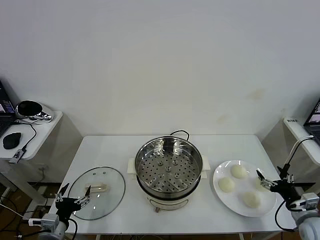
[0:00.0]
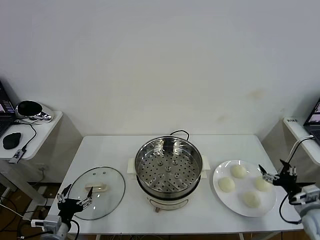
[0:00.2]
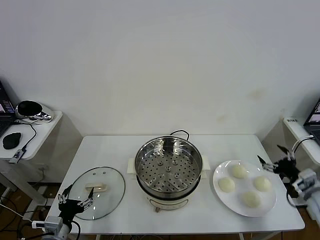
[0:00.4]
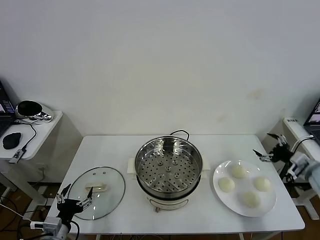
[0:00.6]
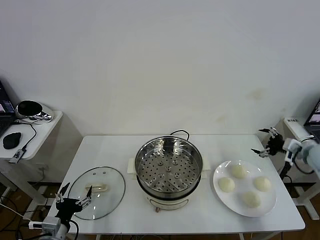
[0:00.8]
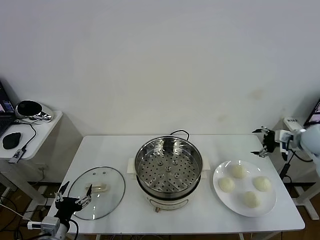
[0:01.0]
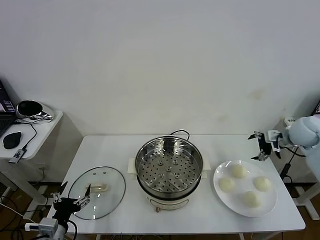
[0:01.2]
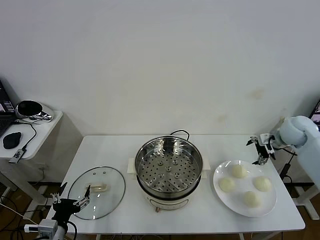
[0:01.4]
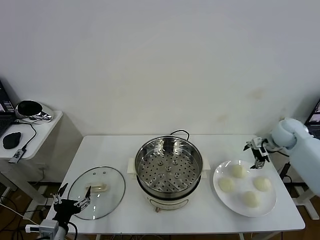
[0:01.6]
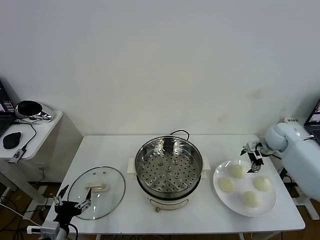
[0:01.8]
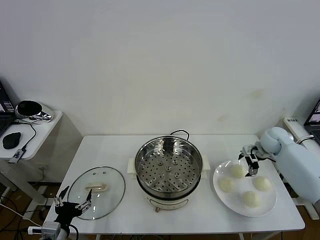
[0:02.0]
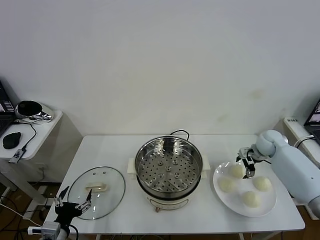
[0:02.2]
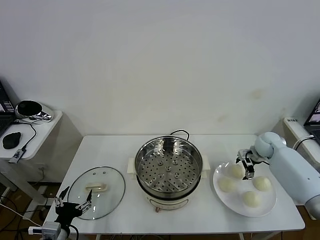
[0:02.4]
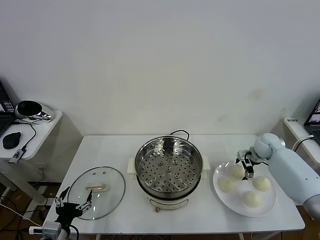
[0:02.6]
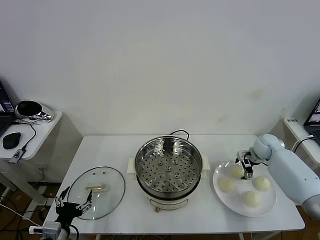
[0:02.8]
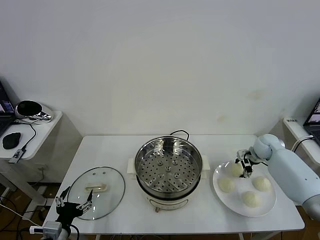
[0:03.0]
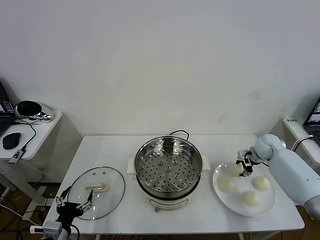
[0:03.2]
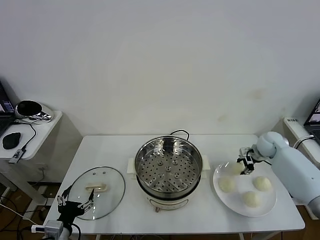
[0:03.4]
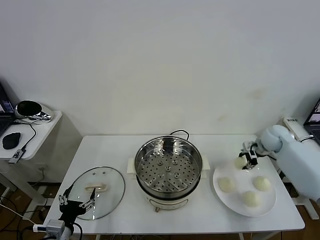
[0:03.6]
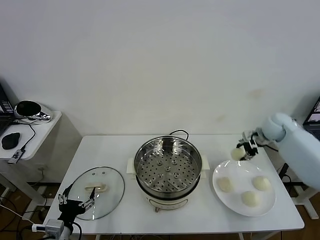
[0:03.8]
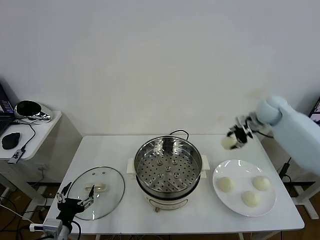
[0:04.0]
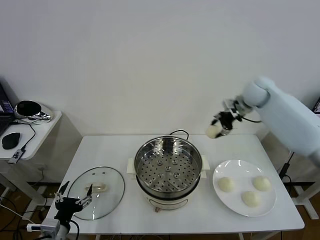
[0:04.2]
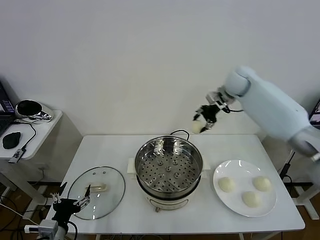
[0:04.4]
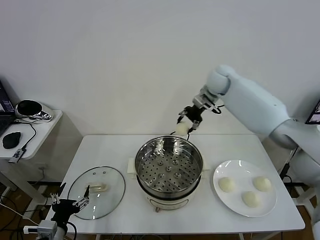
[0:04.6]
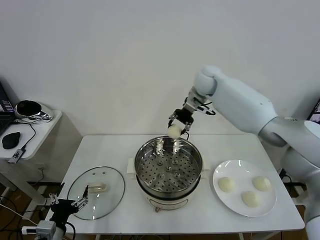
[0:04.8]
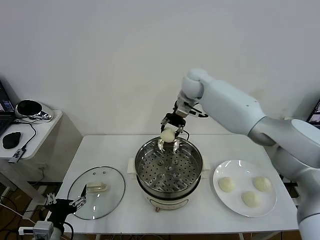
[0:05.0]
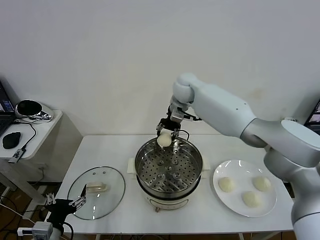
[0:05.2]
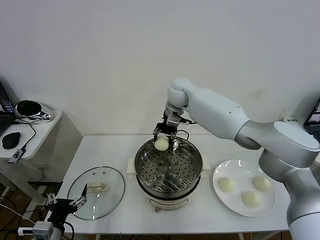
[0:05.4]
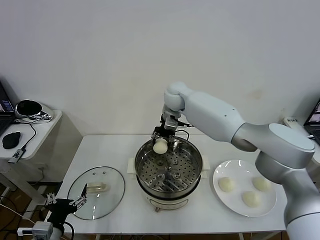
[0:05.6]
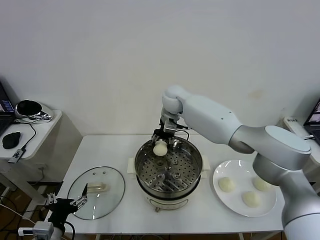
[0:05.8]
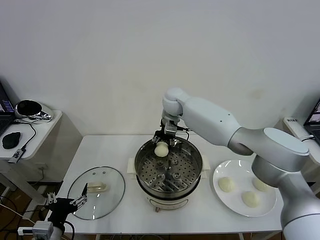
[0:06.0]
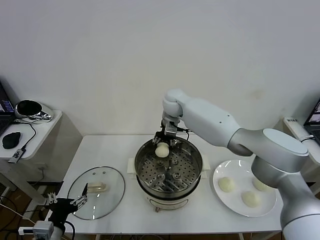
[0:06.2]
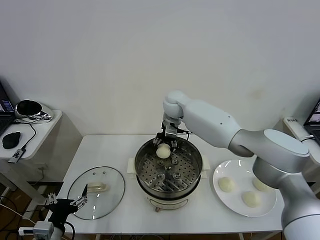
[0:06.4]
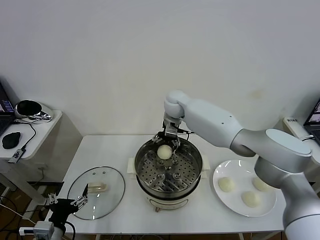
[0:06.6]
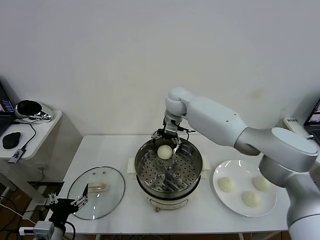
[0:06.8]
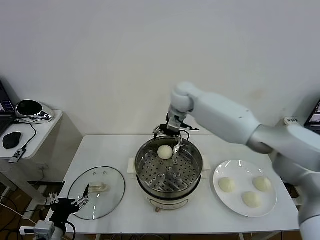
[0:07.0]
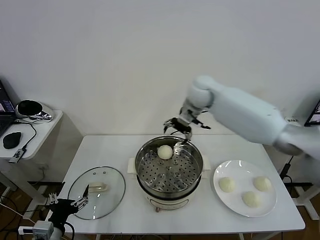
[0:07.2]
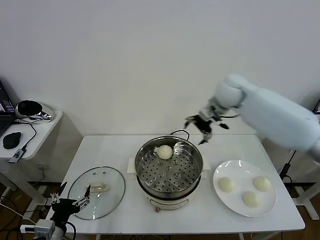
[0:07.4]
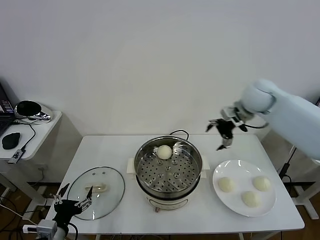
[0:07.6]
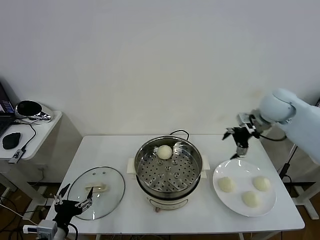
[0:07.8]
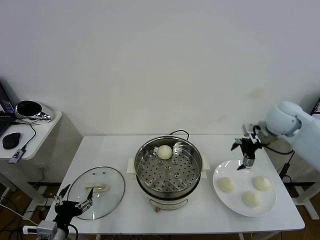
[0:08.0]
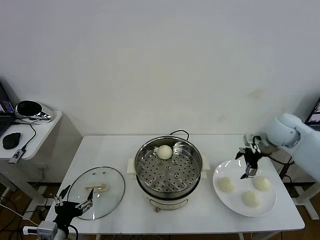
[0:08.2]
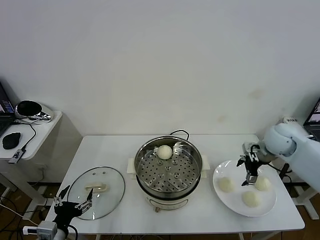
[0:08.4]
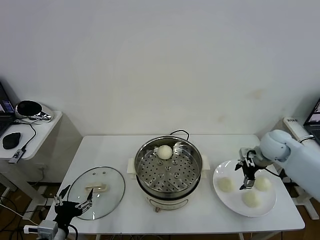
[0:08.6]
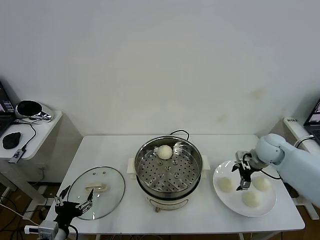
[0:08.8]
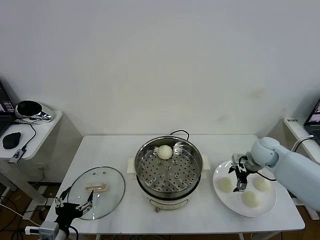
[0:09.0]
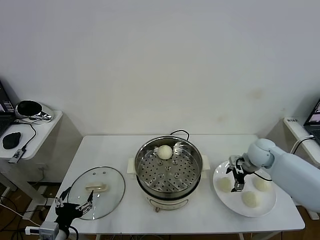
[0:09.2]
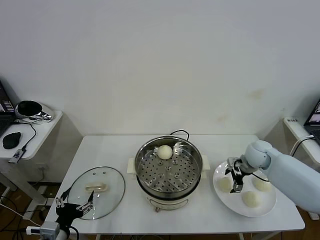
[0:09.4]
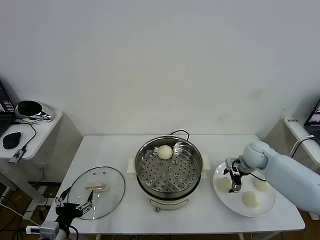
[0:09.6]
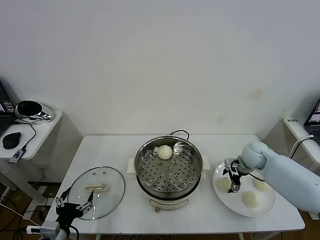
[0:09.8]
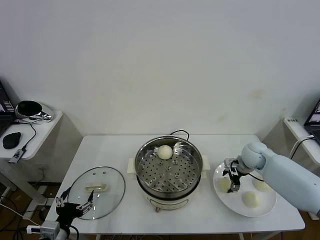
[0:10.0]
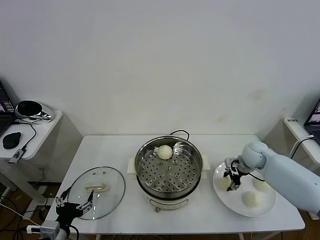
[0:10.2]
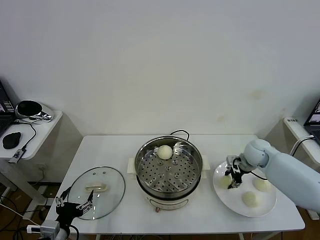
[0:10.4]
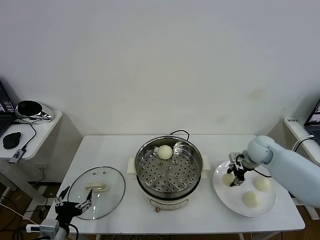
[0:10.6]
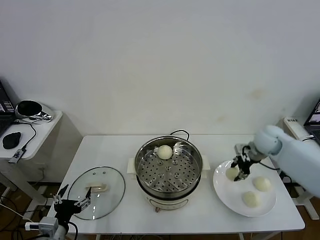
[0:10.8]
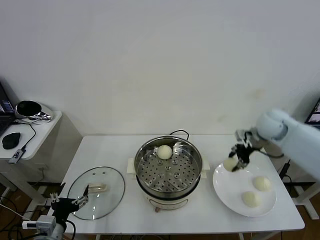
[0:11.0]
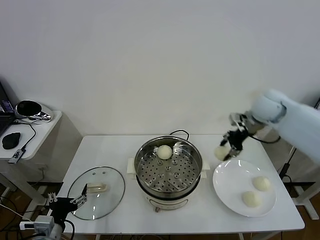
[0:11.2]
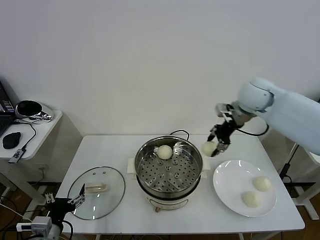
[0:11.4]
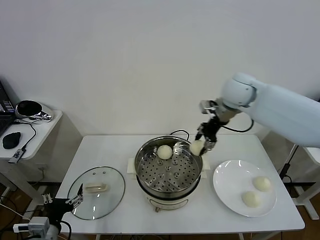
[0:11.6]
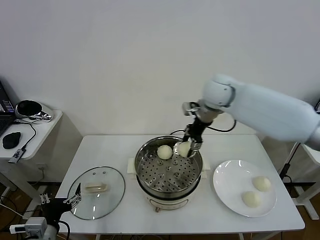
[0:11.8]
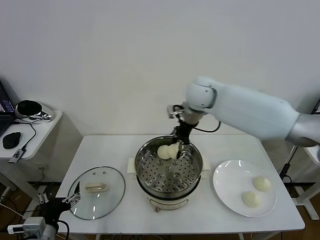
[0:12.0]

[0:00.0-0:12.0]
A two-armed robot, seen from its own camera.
Task of the whole recording: take steamed baozi put them in steamer then cover it.
Step, 0.0 to 3.0 s: Grasp the baozi in the plate with right gripper.
Step, 3.2 to 6.8 s: Place the baozi on the steamer with right gripper.
Step, 7.0 to 10.4 s: Grasp the baozi in the plate with right gripper.
1.6 to 3.0 s: The right gripper heads downward, covering some 10 cm, and closes.
3.0 to 4.4 s: The right gripper shifts approximately 35 cm upward, to the left and forward.
4.4 to 6.0 s: The right gripper shifts about 20 cm to the left and downward.
6.0 to 7.6 s: The right gripper is displaced to the right by approximately 30 cm, and opens up.
7.6 to 9.0 s: The right gripper moves downward, about 20 cm.
9.0 to 10.4 s: The right gripper closes its fingers.
10.4 to 12.0 s: The right gripper travels to the left and upward by roughly 35 cm.

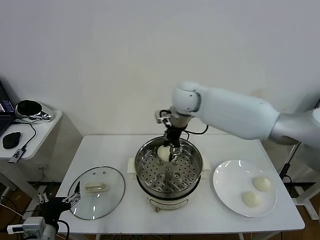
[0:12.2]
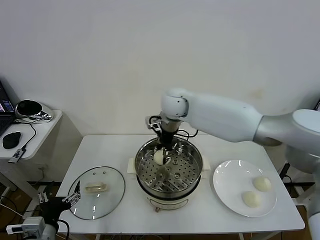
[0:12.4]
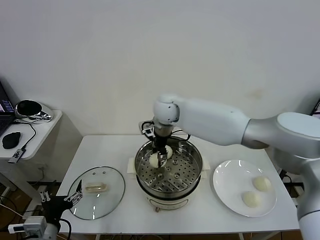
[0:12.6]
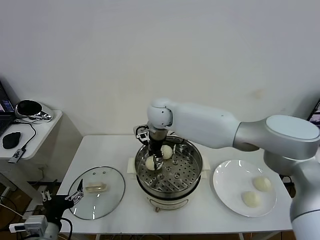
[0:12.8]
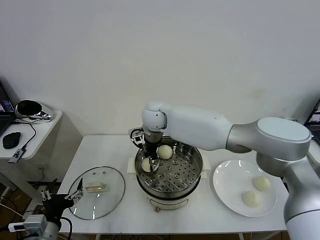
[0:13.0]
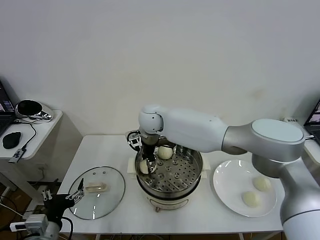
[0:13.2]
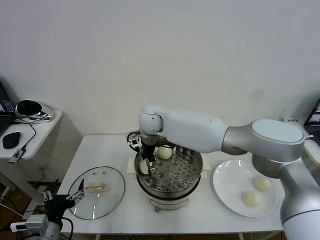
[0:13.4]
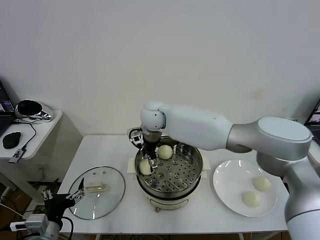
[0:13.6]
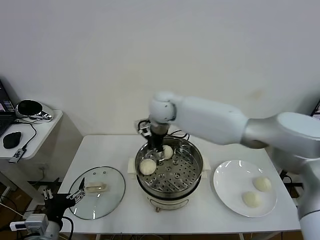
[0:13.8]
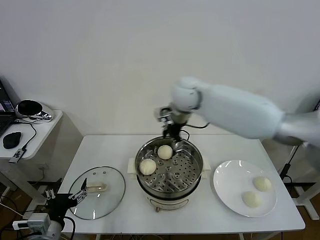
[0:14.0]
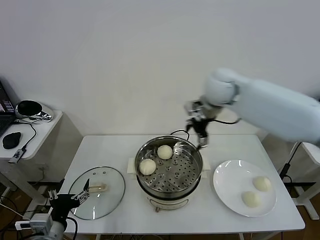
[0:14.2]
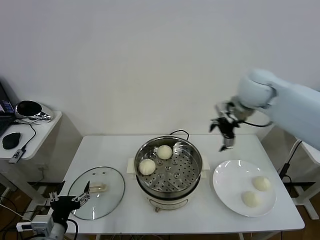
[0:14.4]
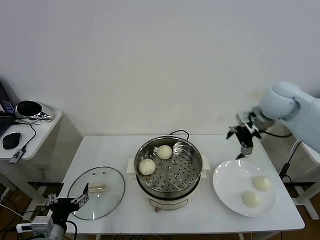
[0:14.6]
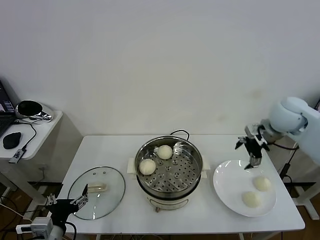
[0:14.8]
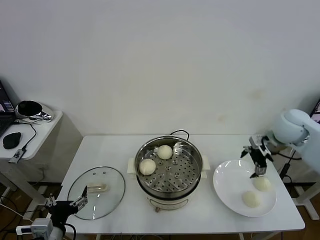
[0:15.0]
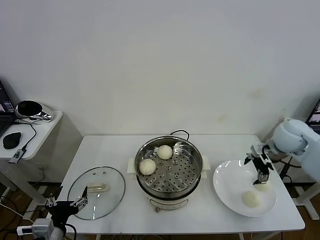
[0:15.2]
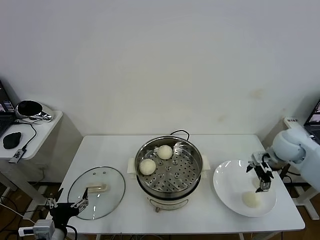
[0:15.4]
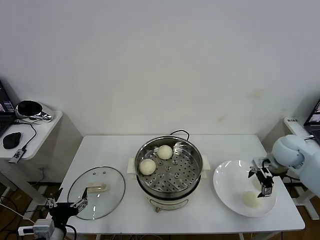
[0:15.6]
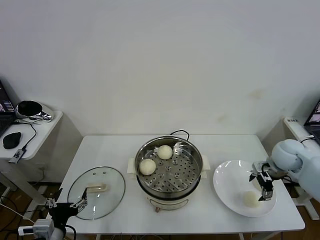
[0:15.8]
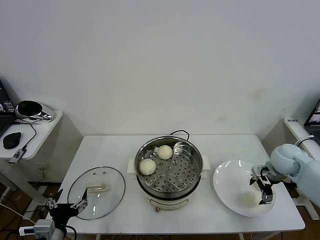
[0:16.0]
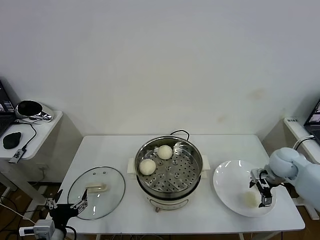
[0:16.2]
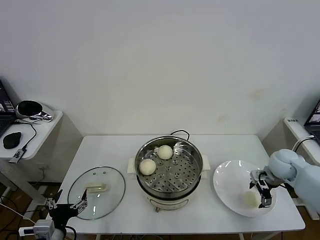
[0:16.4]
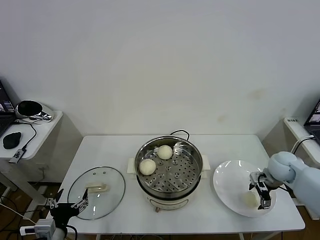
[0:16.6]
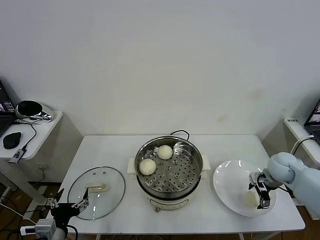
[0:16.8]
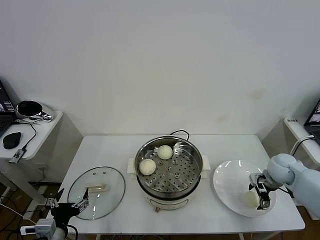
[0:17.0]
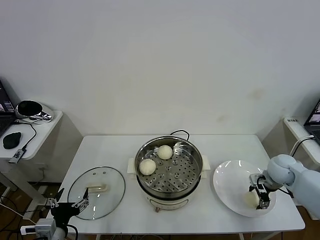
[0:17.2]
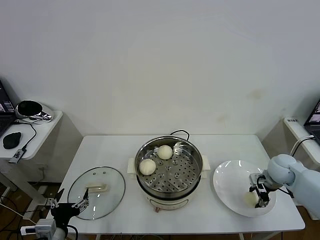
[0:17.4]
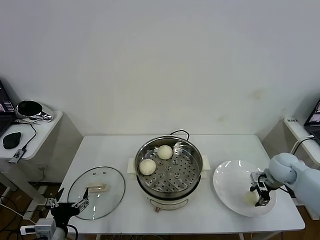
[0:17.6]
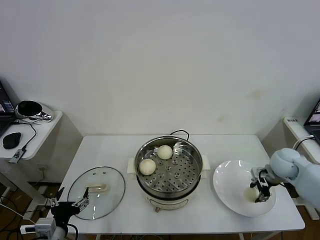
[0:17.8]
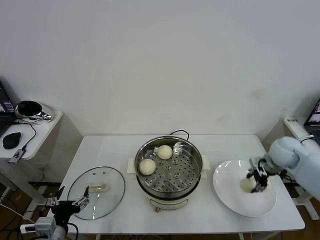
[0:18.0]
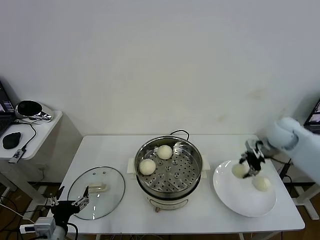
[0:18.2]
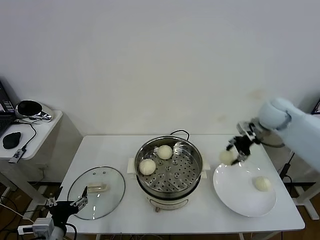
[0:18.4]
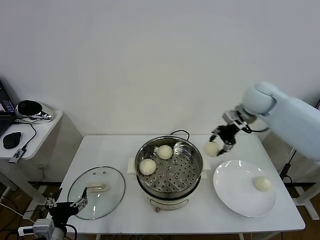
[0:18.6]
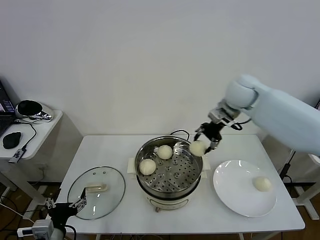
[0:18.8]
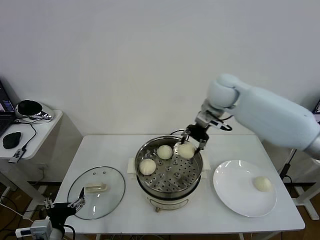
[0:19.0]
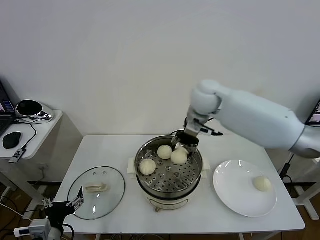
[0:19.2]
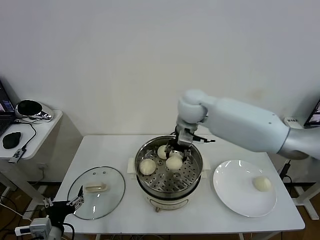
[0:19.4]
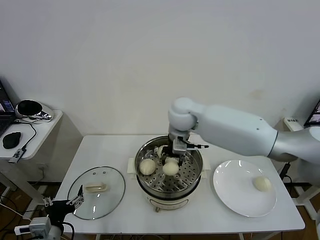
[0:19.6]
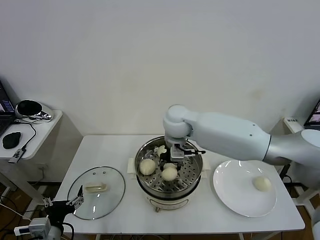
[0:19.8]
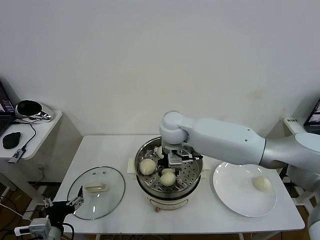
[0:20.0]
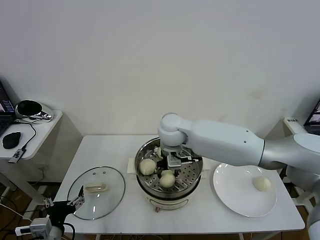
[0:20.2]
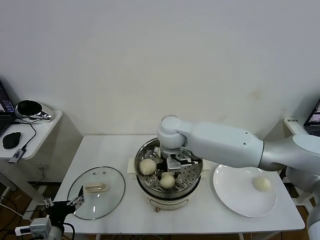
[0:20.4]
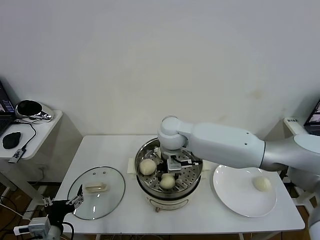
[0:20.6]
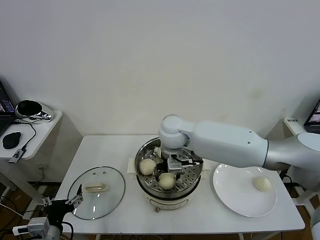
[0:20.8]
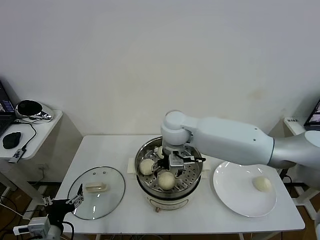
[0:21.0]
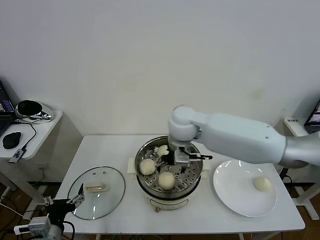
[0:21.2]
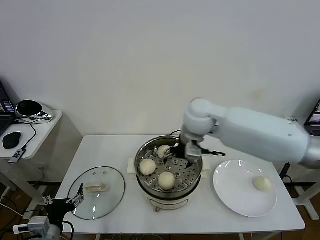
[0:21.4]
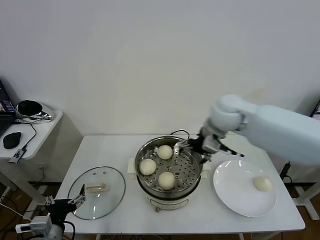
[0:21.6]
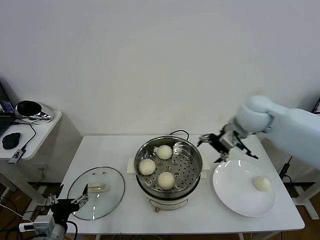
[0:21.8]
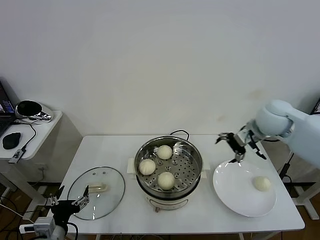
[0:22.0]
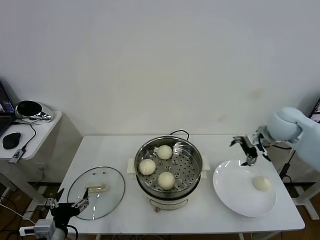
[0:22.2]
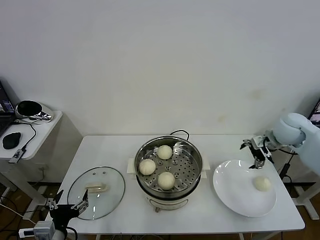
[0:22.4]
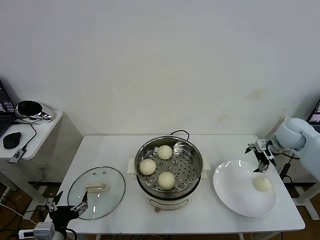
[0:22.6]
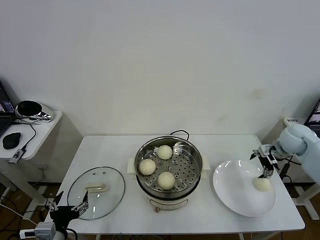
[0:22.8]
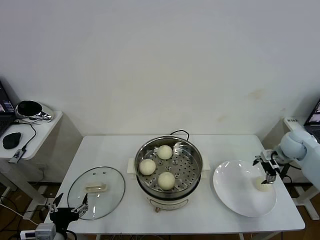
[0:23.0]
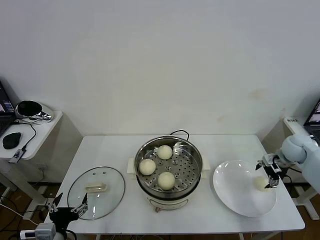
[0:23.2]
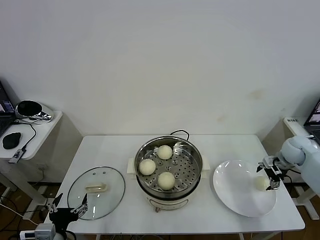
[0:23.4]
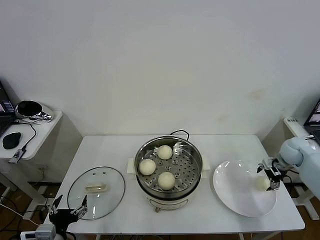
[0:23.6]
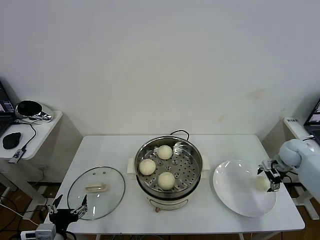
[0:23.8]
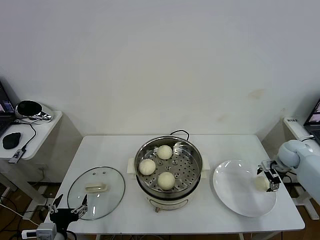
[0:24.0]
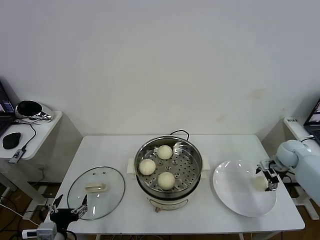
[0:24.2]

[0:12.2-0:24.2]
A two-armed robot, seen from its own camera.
Task of the whole recording: take steamed baozi put them in steamer then cover it.
Step, 13.8 to 17.6 s: Grasp the baozi in the plate with right gripper.
Step, 17.8 to 20.8 s: Place the baozi on the steamer with right gripper.
12.2 to 13.8 s: The right gripper moves approximately 10 cm to the left and comes back, and opens its fingers.
13.8 to 15.2 s: The right gripper is displaced to the right by about 35 cm.
15.2 to 16.6 s: The right gripper is displaced downward by roughly 10 cm.
16.6 to 18.2 s: The right gripper shifts roughly 15 cm upward and forward, and closes its fingers.
18.2 to 19.8 s: The right gripper goes approximately 35 cm to the left.
19.8 to 21.2 s: The right gripper opens.
21.2 to 22.6 s: The right gripper goes roughly 35 cm to the right.
22.6 to 24.2 s: The right gripper travels downward and to the right by roughly 10 cm.
